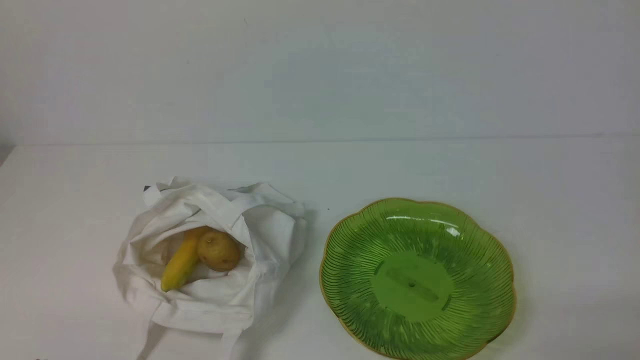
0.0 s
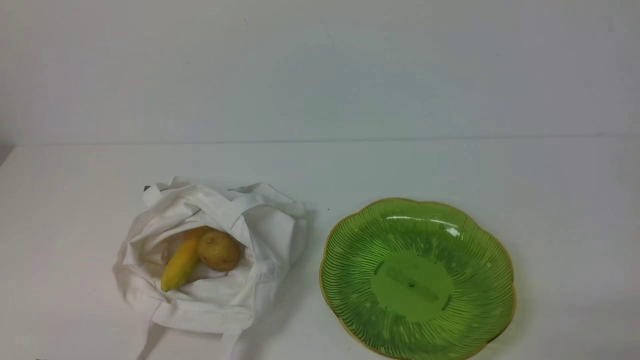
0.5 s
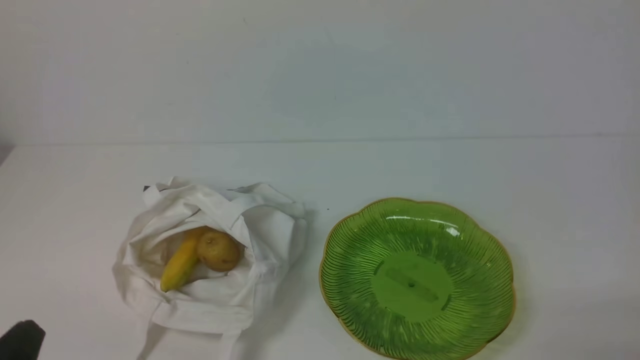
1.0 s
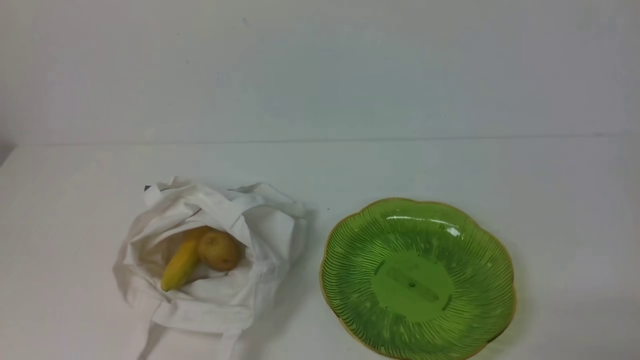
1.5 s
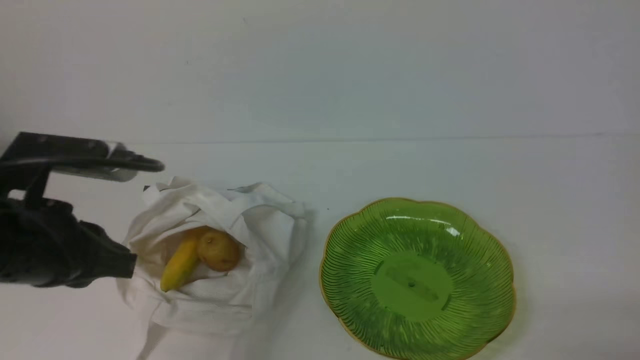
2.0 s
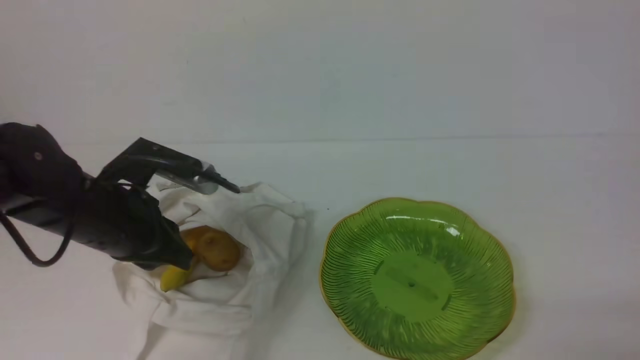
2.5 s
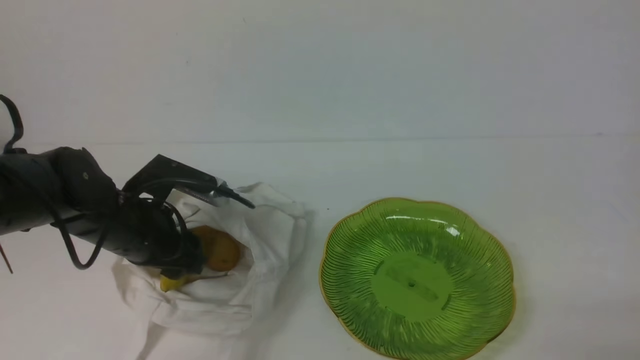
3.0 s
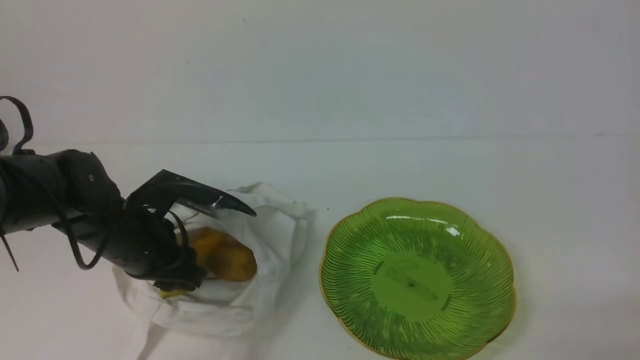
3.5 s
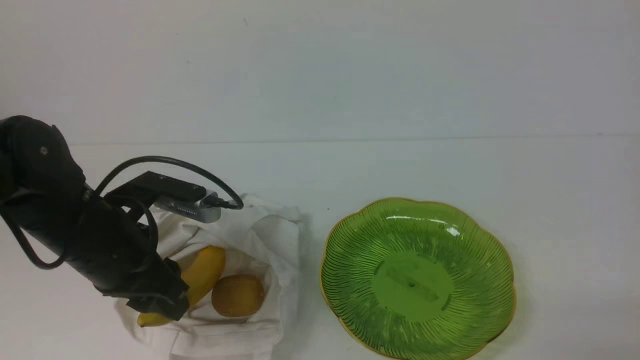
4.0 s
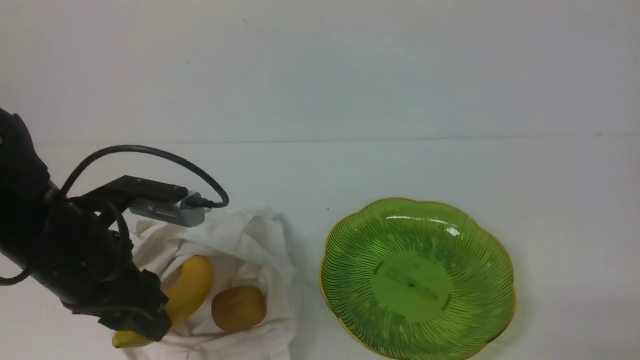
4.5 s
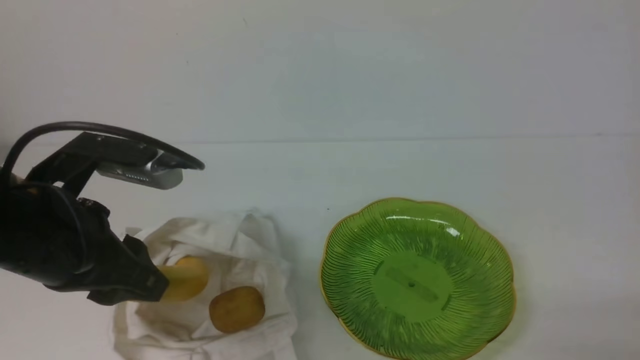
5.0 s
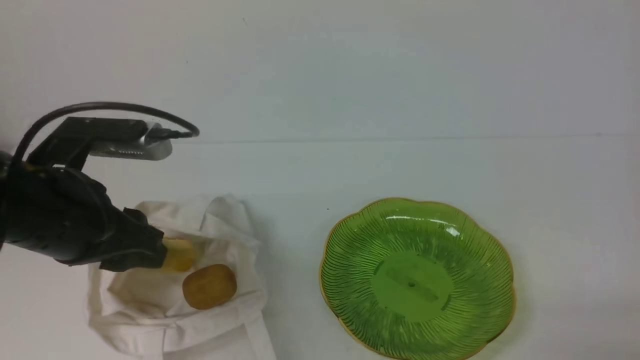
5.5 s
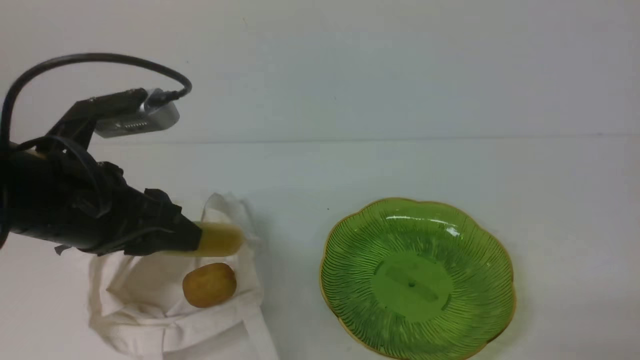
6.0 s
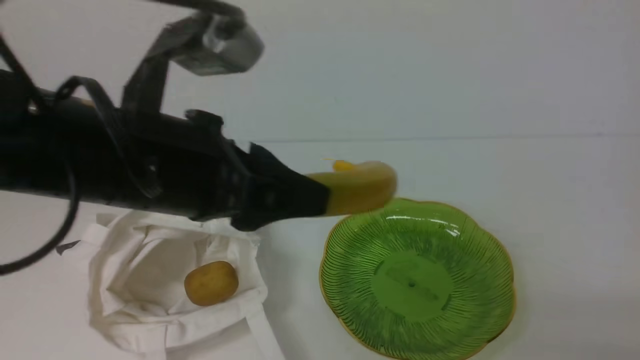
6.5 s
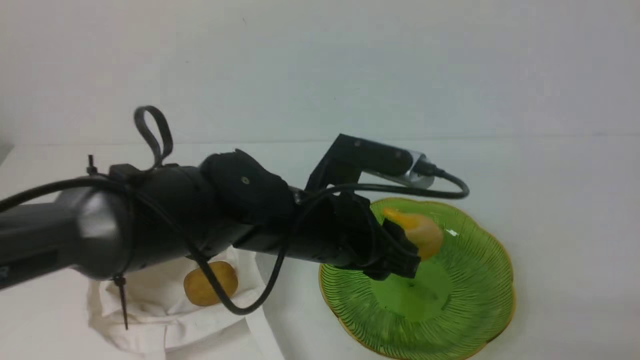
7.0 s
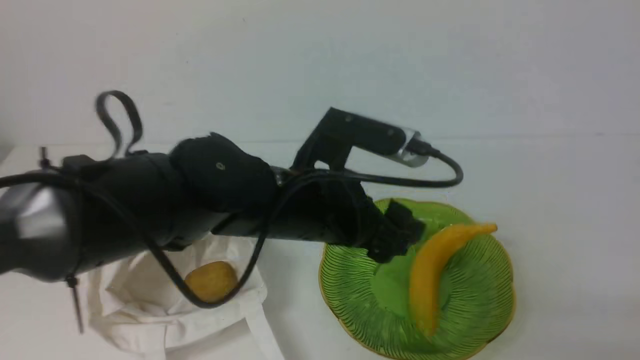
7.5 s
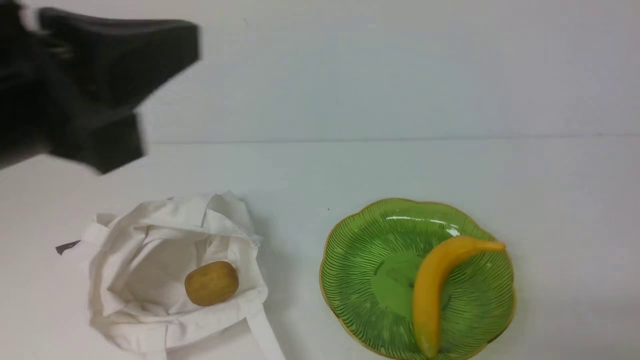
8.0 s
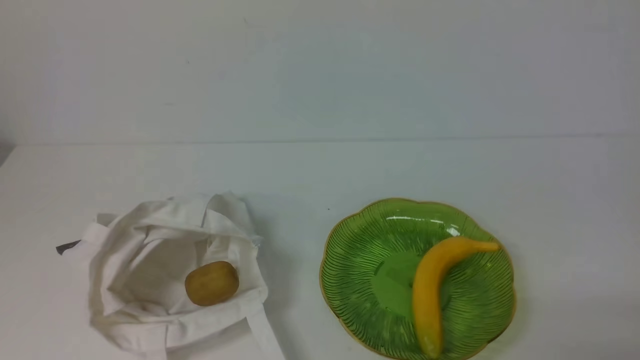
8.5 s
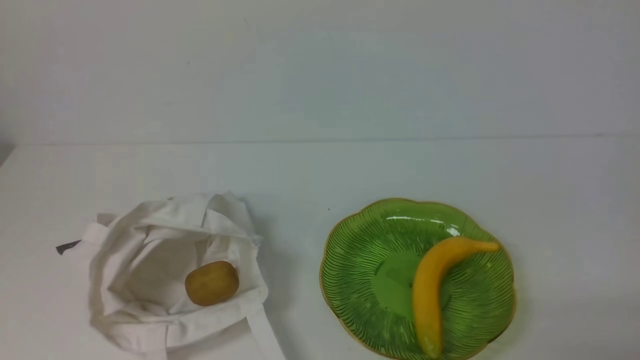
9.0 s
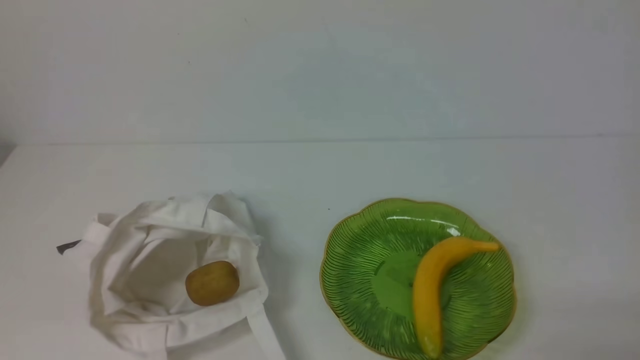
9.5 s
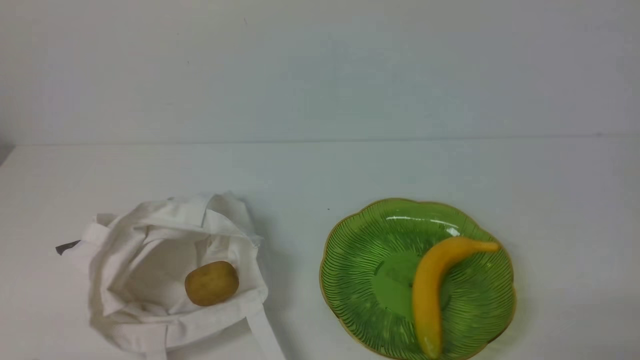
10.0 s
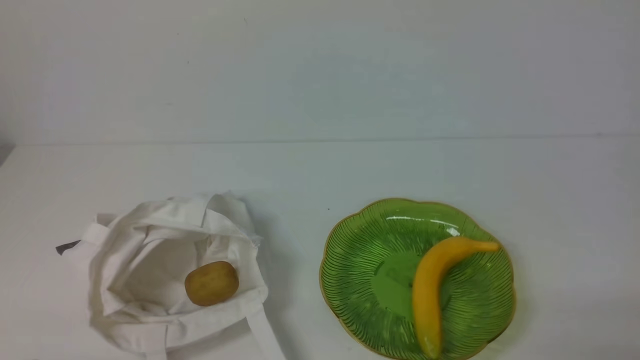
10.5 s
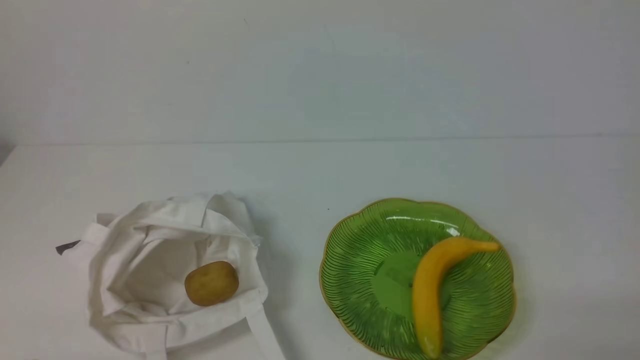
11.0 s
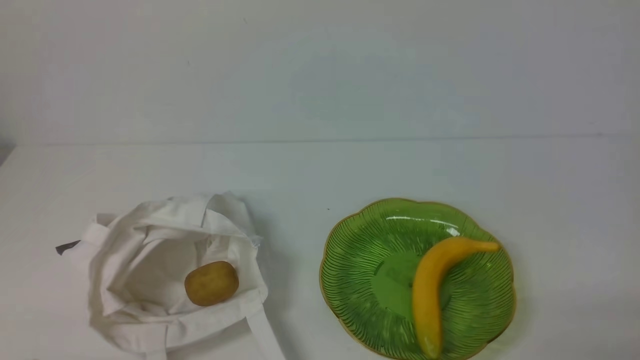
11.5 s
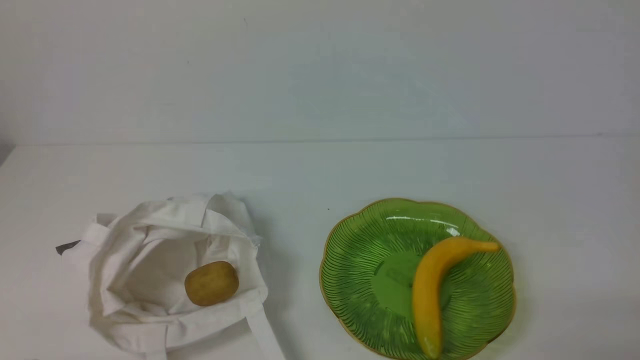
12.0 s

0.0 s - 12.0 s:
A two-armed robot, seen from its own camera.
Step, 0.0 s - 3.5 s: use the left arm to grab a banana from the bag.
Step, 4.0 s - 7.0 s: use the left arm to put the banana into the empty plate on the right.
0.0 s - 2.0 s: The left gripper shifts about 20 cm forward and upward.
2.0 s - 4.0 s: The left gripper is displaced downward and forward by some 10 cm, and opens its fingers.
4.0 s - 6.0 s: The left gripper travels upward by about 10 cm.
6.0 s - 8.0 s: The left gripper is displaced upward and backward by some 15 cm, travels to the right and back again, roughly 20 cm each way, and closes up.
8.0 s - 10.0 s: The left gripper heads downward, covering about 25 cm.
10.0 s - 12.0 s: Neither gripper changes place.
